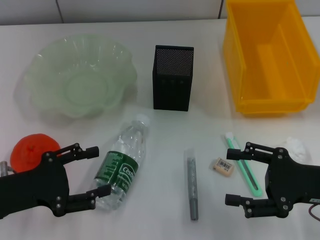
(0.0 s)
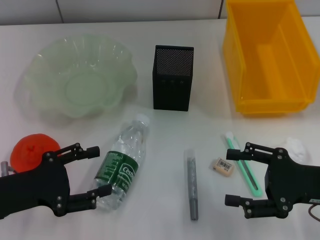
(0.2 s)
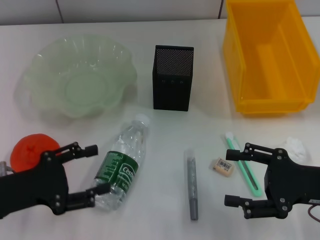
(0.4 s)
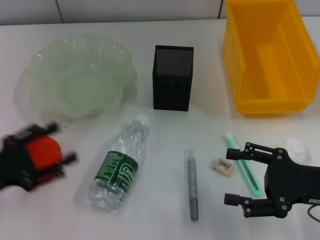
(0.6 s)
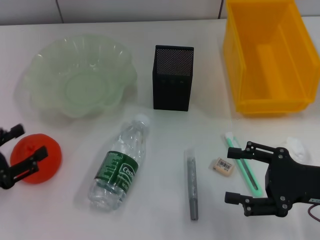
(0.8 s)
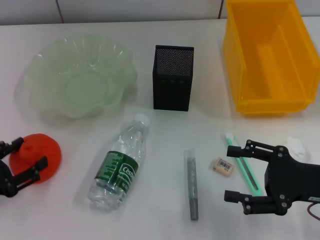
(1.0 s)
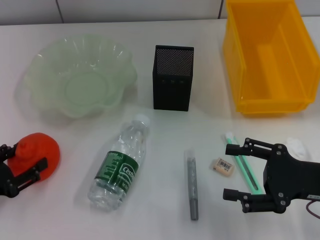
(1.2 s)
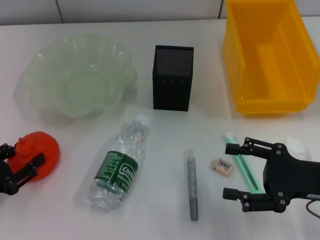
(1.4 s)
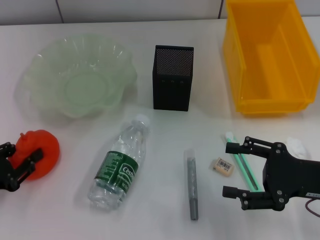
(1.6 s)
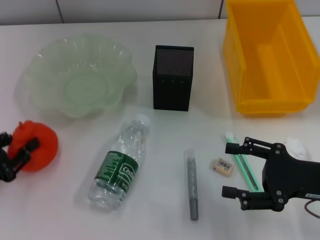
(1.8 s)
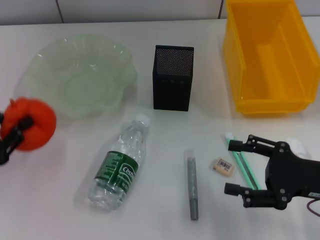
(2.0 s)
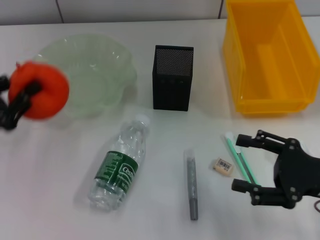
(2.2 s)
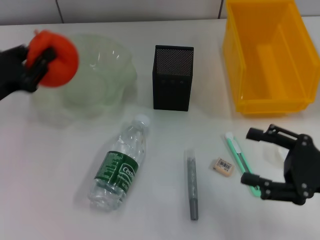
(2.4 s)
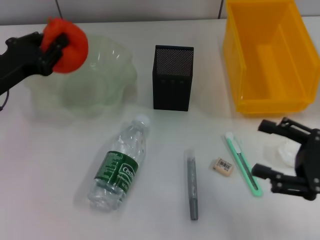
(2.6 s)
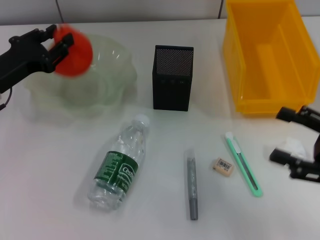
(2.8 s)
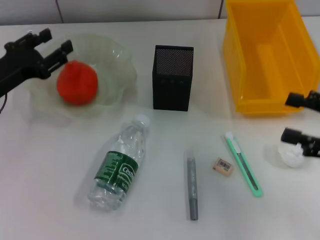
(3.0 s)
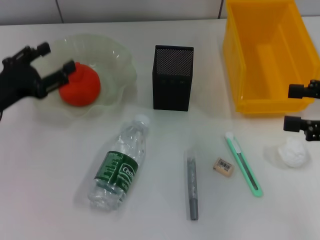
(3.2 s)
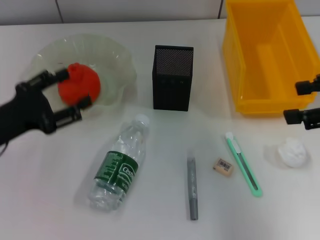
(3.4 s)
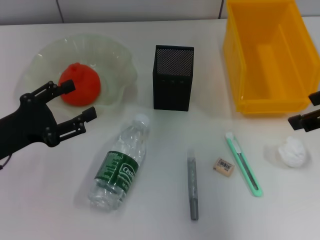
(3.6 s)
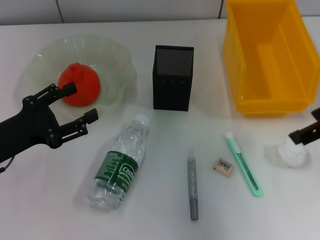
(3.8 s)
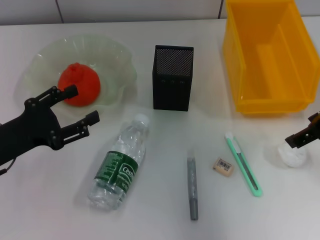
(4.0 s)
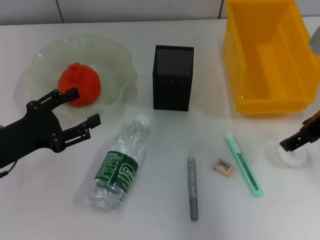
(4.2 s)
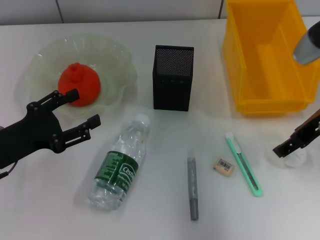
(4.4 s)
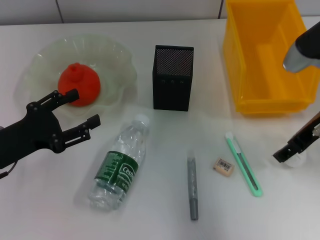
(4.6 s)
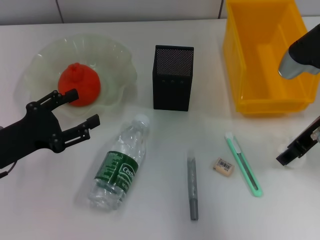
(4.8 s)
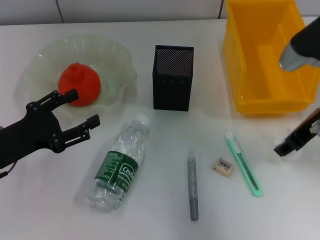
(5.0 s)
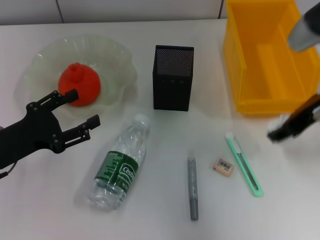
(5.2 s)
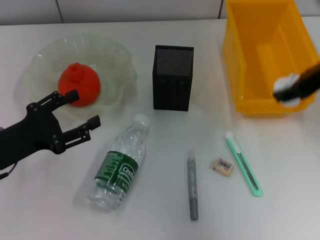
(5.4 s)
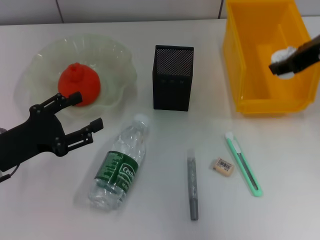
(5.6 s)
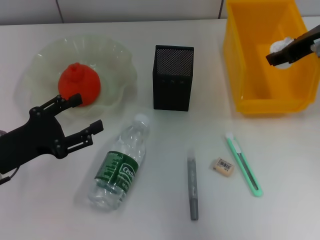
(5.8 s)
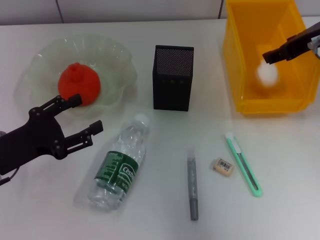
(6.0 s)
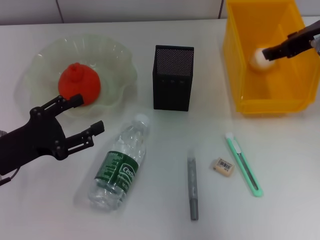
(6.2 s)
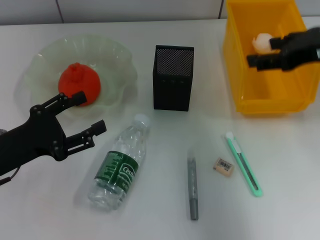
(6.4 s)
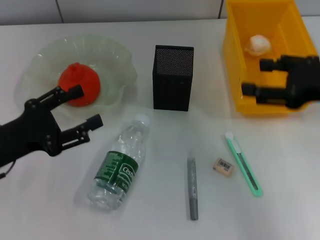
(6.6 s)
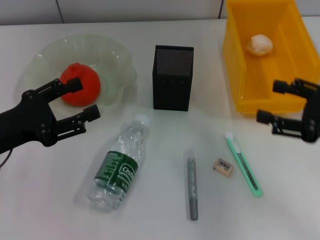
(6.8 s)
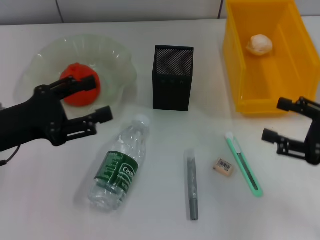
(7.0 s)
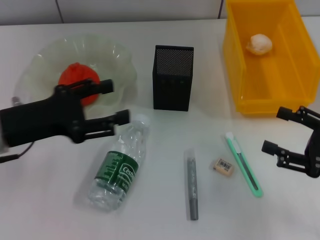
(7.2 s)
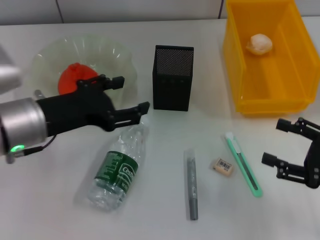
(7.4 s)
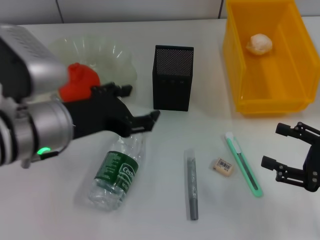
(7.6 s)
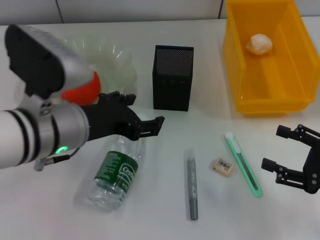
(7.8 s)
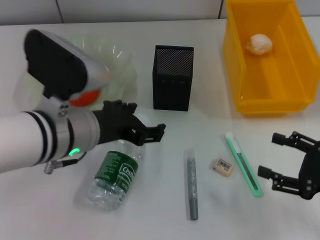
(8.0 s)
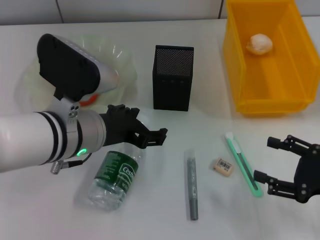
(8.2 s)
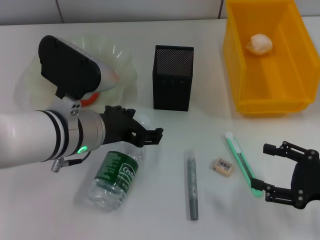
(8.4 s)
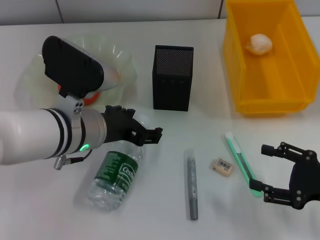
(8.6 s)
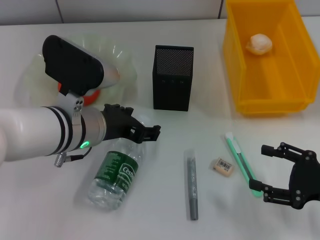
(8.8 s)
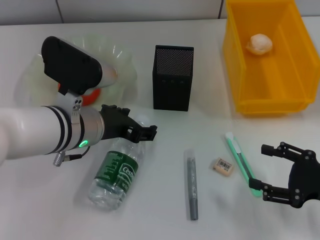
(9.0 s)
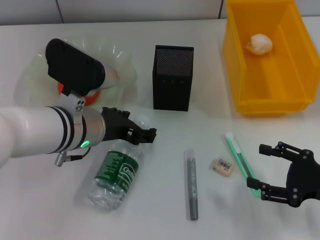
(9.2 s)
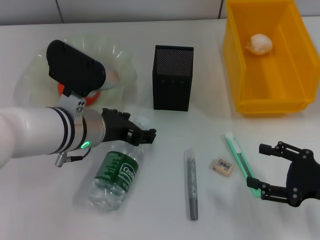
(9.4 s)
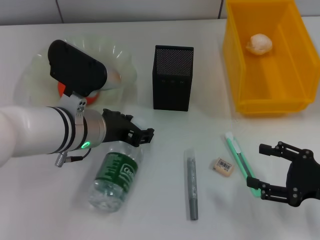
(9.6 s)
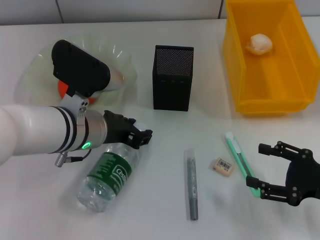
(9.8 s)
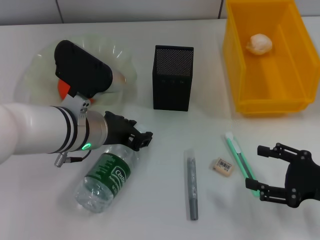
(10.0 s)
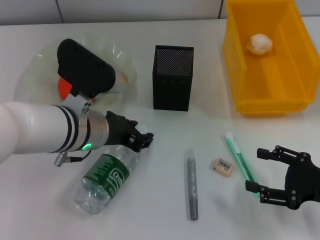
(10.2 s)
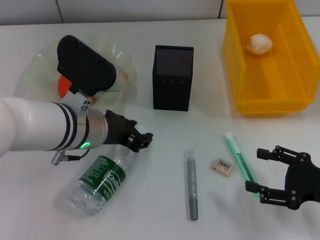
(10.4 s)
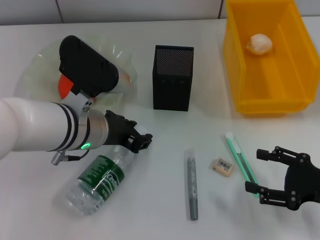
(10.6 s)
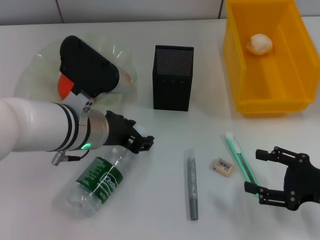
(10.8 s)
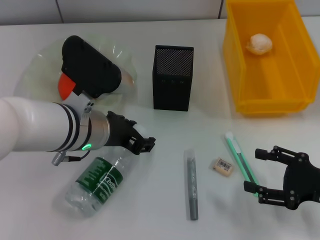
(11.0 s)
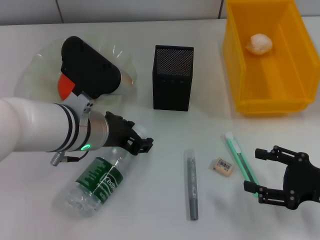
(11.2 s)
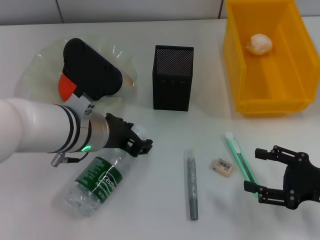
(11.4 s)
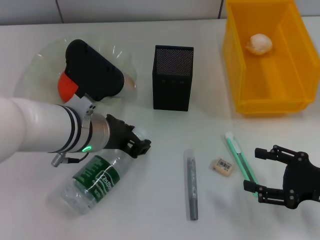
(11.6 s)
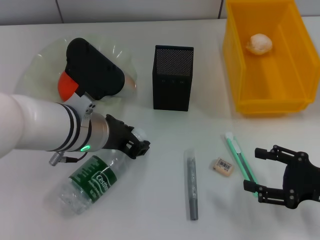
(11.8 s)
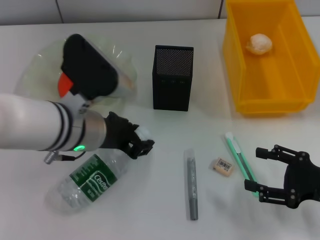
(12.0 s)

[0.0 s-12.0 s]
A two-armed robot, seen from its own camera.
Step, 0.0 to 1.0 s: Grab the orange with the left hand.
Step, 1.4 to 3.0 s: Place the orange into the fruit bowl with the left hand.
Step, 3.2 to 4.6 s: Grab the paper ball with the right hand.
Step, 5.0 to 6.4 s: Place the paper ball into the trash can with the right hand.
Step, 6.6 to 10.0 s: Grab the water bottle with the left hand.
0.0 to 1.6 s: The left gripper moves to the left, approximately 5 cm, and closes.
1.6 to 3.0 s: The left gripper shifts approximately 15 cm forward and upward, and closes. The right gripper moves upward and to the right, approximately 10 cm.
3.0 to 4.4 s: The left gripper heads backward, covering roughly 10 cm, and opens its fingers, while the right gripper heads forward and to the left, covering about 15 cm, and goes upward and returns, roughly 10 cm each way.
4.4 to 6.0 s: The right gripper shifts about 5 cm upward.
6.0 to 7.6 s: The left gripper travels to the right and upward by approximately 15 cm. Meanwhile the right gripper moves backward, downward and to the right, approximately 25 cm.
7.6 to 9.0 s: The left gripper shifts by approximately 5 cm.
9.0 to 10.4 s: The left gripper closes up.
10.4 to 12.0 s: The grippers move only a little.

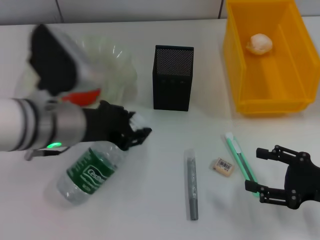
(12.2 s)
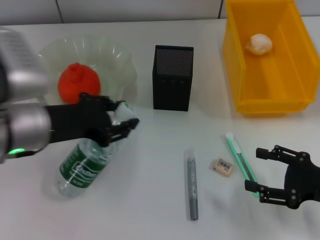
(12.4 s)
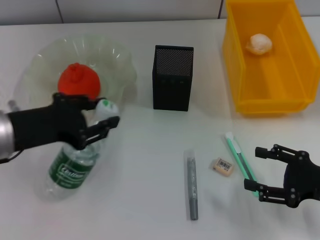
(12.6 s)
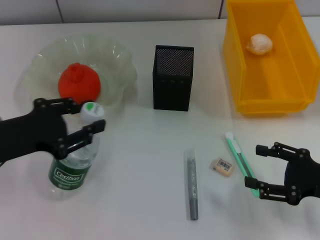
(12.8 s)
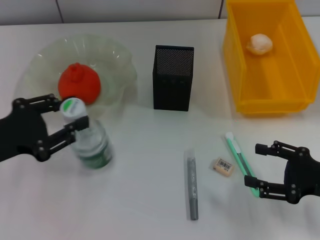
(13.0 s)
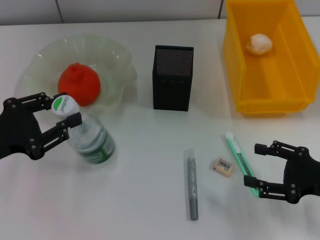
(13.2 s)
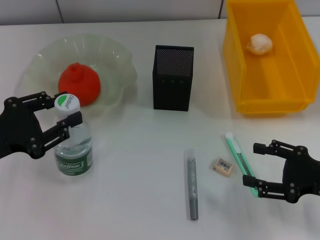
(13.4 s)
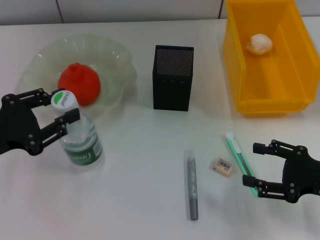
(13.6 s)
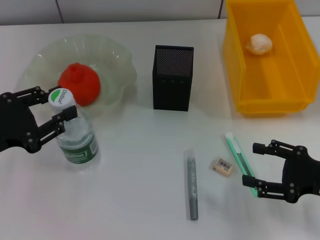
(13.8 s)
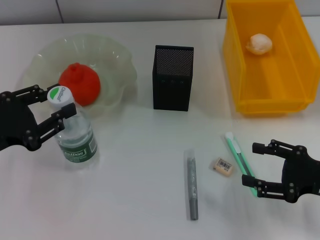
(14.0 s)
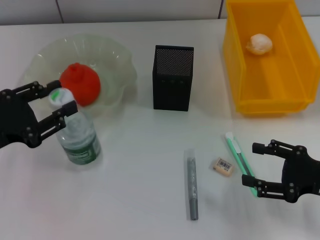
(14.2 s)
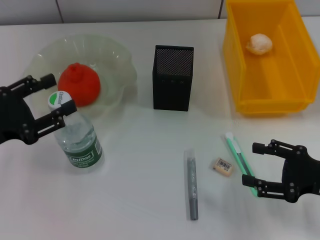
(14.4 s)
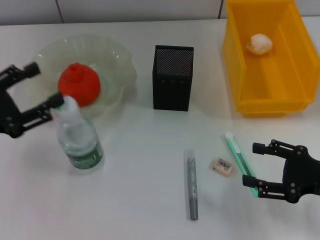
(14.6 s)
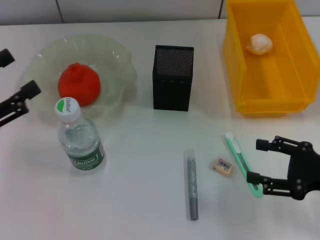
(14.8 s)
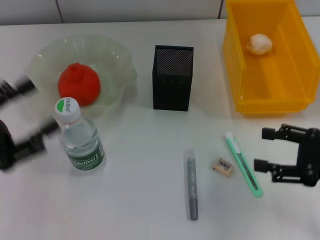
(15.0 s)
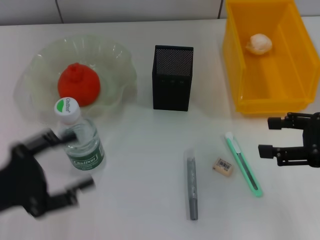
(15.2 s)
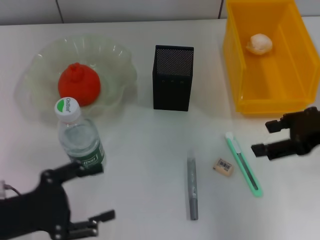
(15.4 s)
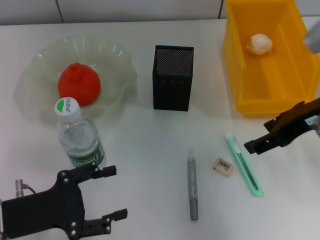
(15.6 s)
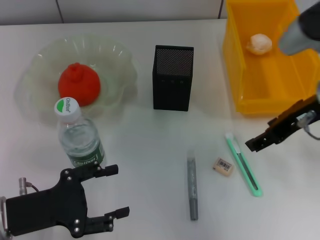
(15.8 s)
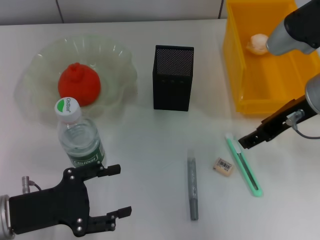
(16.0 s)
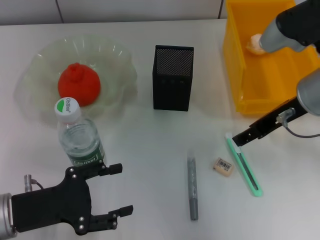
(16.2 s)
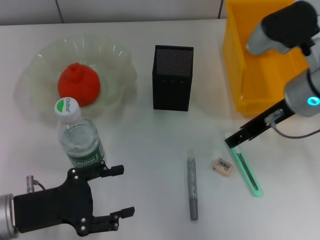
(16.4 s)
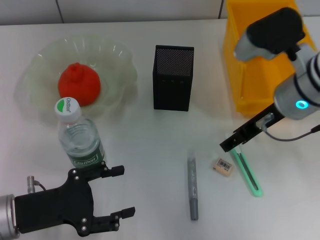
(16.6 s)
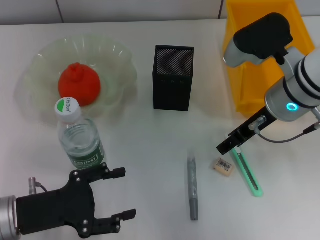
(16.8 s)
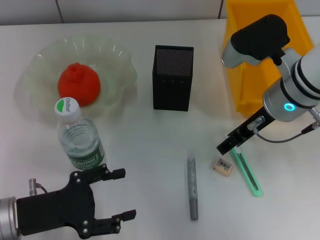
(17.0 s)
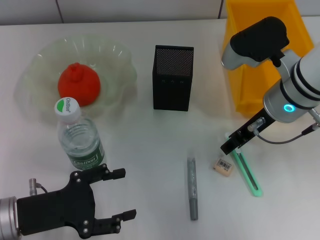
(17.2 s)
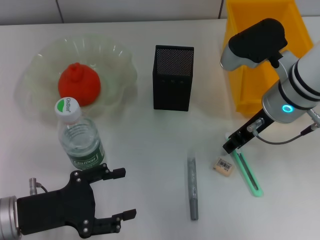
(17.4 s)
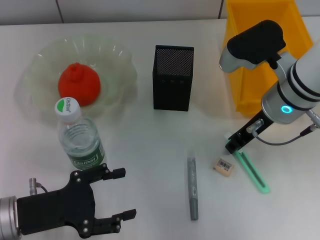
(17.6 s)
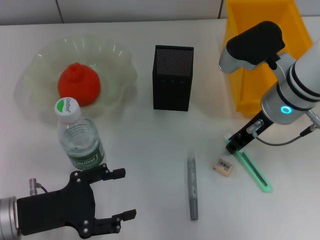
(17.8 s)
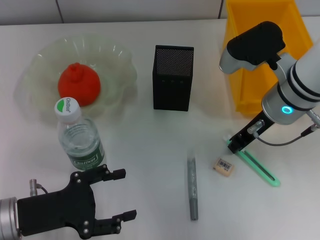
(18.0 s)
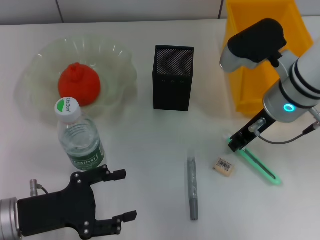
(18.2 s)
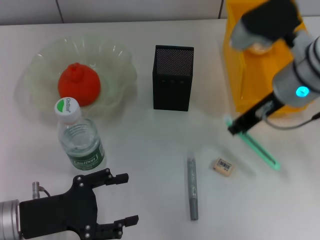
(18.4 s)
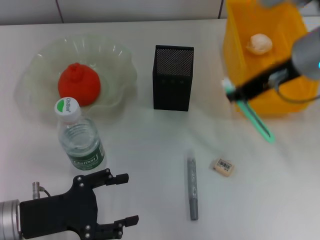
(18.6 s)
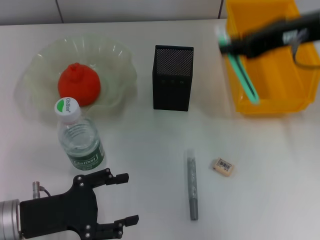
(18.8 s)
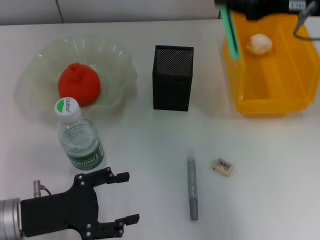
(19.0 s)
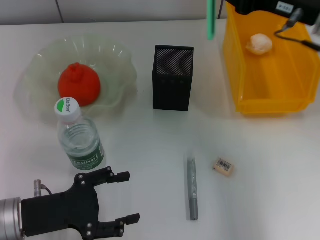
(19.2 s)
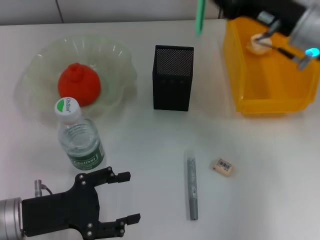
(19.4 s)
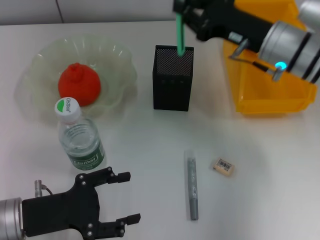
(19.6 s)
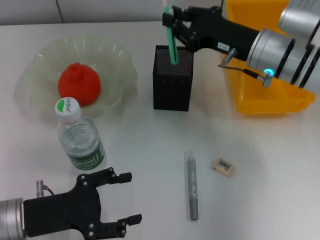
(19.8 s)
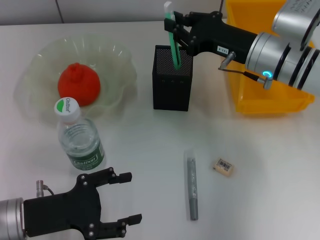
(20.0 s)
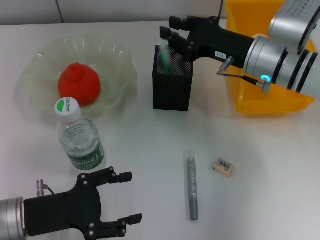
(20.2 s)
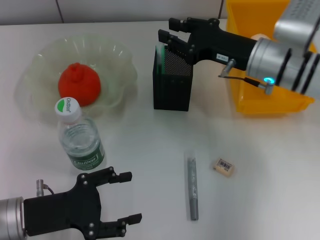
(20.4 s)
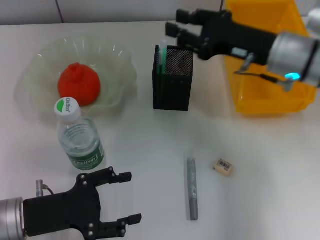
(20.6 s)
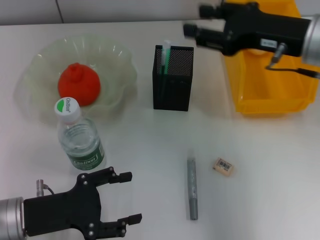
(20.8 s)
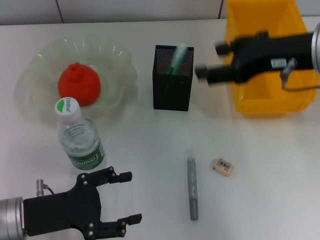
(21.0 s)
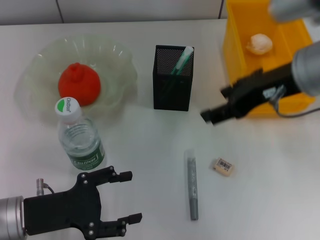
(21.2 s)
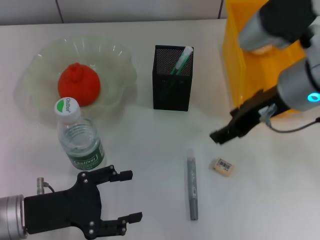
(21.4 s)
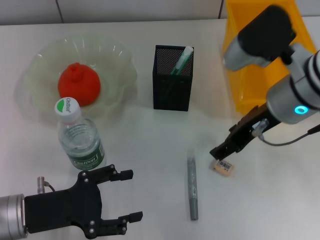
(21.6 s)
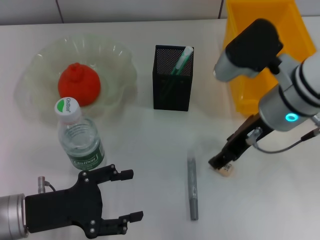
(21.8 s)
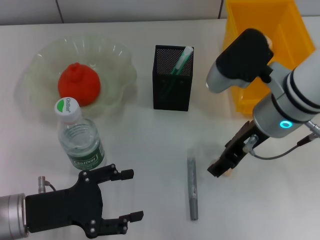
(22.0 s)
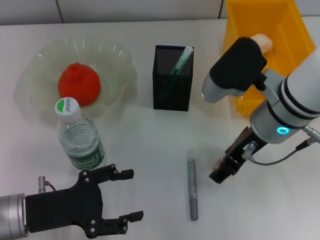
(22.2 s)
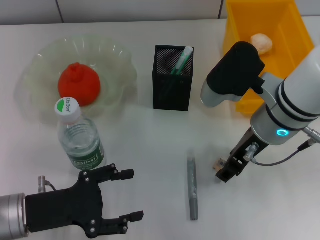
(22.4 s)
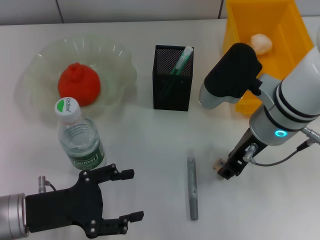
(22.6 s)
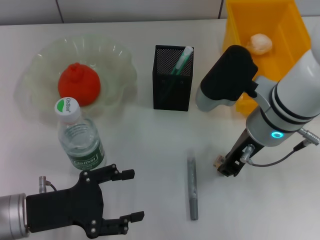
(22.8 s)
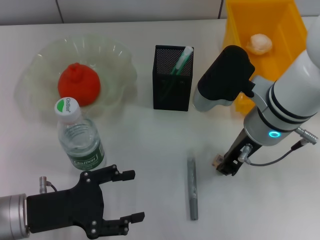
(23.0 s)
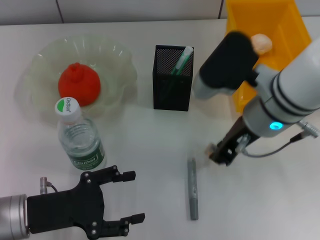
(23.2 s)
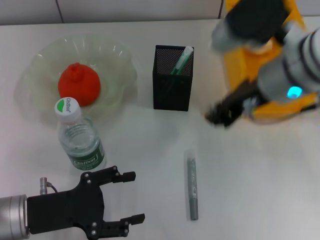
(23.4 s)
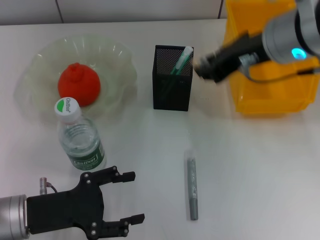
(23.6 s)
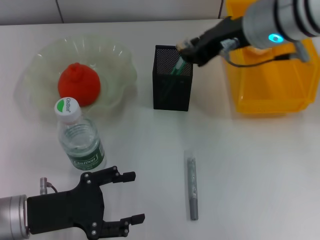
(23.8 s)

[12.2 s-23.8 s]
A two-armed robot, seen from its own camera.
Step, 12.2 to 14.2 s: Place the water bottle on the table with the left hand.
Step, 14.4 to 17.8 s: Grab the blue utility knife with the right hand.
Step, 18.0 to 20.2 s: Place the blue utility knife into the pen holder with the right hand.
Step, 20.4 to 22.8 s: Grab the eraser with the right hand.
12.2 to 13.6 s: The left gripper travels to the left by about 15 cm.
13.6 to 15.0 s: The left gripper opens. The right gripper moves upward, roughly 5 cm.
15.0 to 16.6 s: The left gripper travels downward and to the right by roughly 10 cm. Meanwhile the right gripper moves to the left and forward, some 20 cm.
16.6 to 18.0 s: The right gripper closes its fingers.
18.0 to 19.4 s: The right gripper travels upward and back again, some 15 cm each way.
19.4 to 21.0 s: The right gripper travels upward and backward by about 10 cm, and opens.
21.0 to 22.4 s: The right gripper travels downward and to the left by roughly 10 cm.
22.4 to 23.8 s: The right gripper moves upward, some 10 cm, and closes its fingers.
